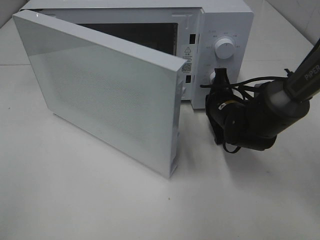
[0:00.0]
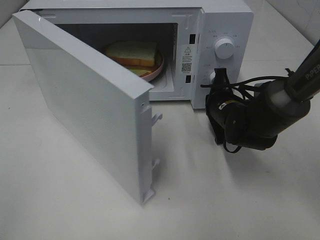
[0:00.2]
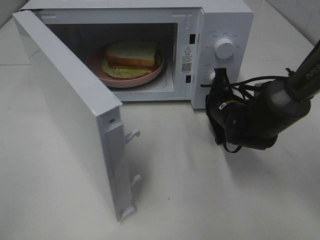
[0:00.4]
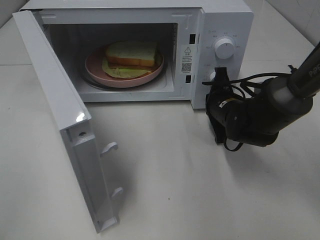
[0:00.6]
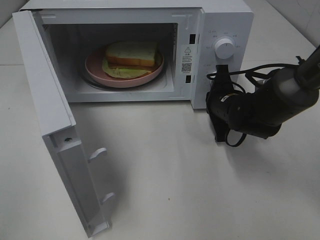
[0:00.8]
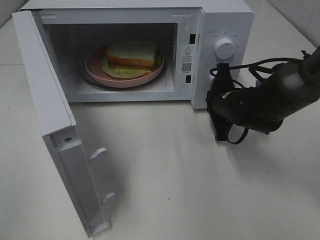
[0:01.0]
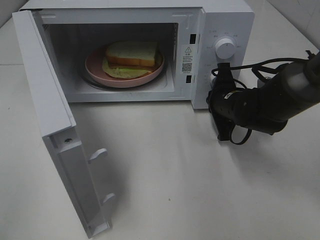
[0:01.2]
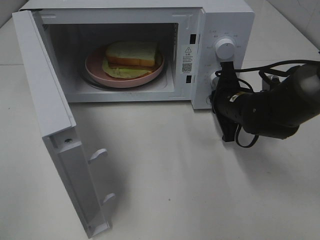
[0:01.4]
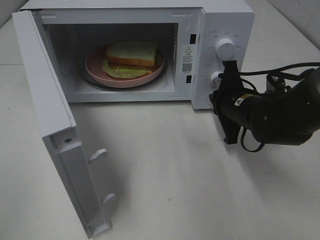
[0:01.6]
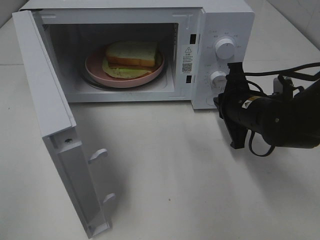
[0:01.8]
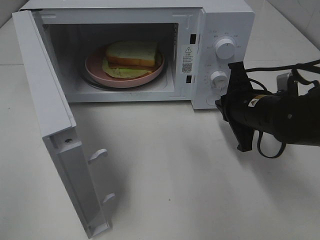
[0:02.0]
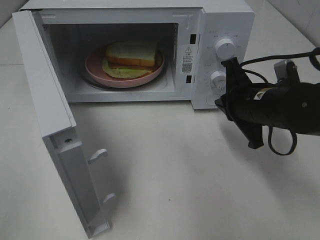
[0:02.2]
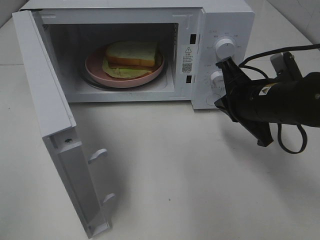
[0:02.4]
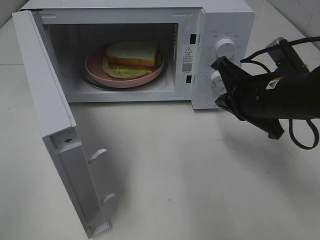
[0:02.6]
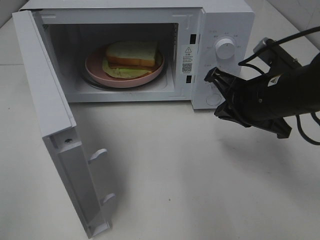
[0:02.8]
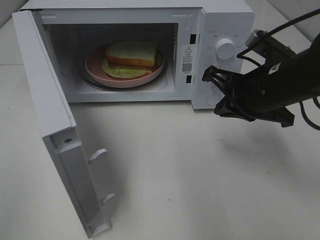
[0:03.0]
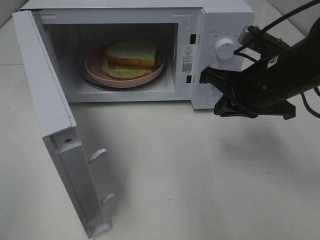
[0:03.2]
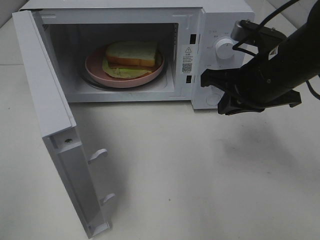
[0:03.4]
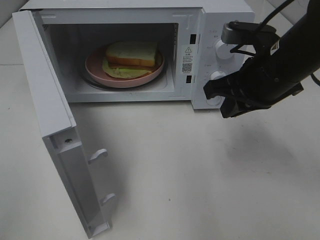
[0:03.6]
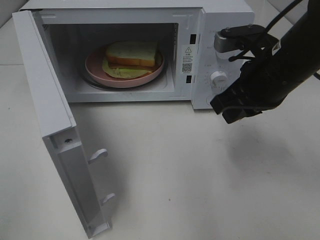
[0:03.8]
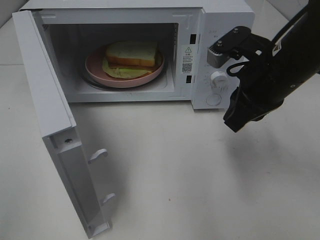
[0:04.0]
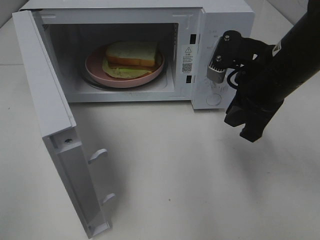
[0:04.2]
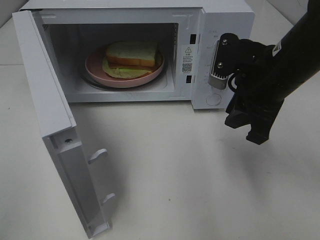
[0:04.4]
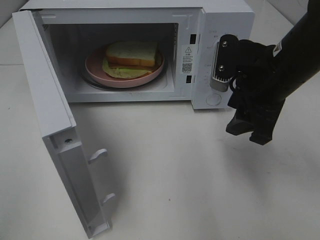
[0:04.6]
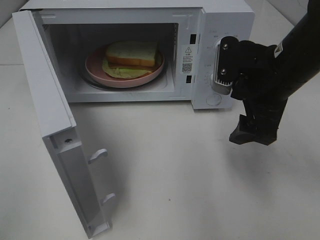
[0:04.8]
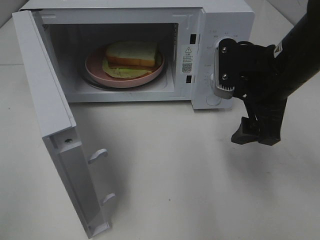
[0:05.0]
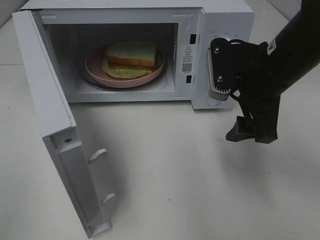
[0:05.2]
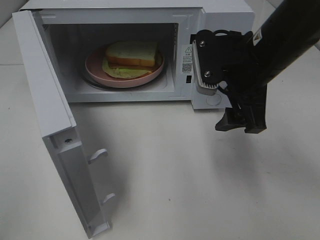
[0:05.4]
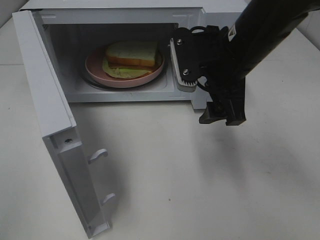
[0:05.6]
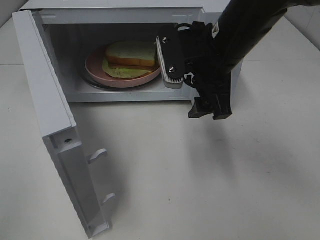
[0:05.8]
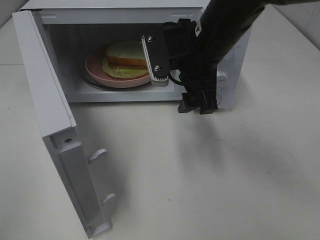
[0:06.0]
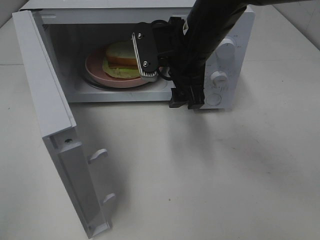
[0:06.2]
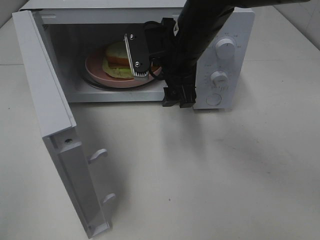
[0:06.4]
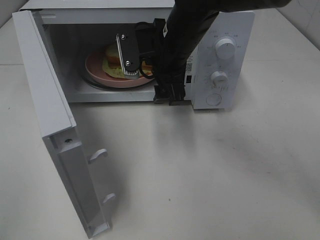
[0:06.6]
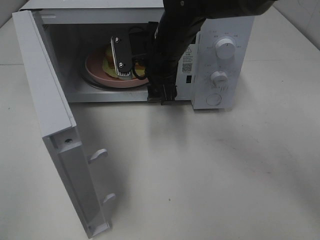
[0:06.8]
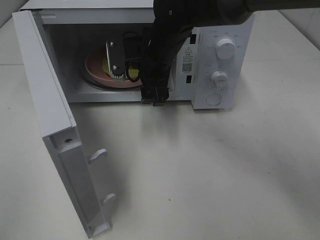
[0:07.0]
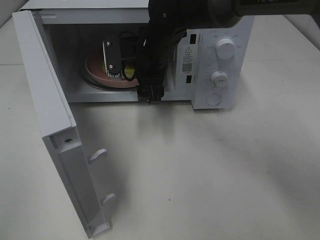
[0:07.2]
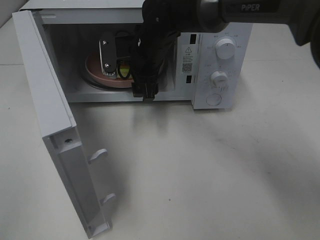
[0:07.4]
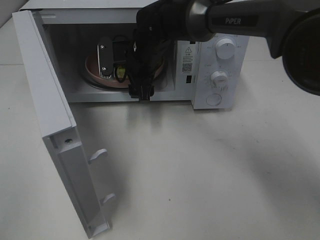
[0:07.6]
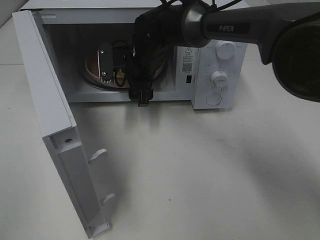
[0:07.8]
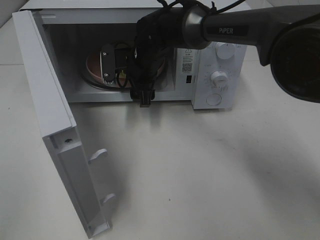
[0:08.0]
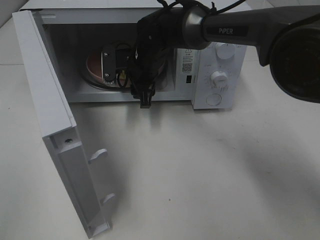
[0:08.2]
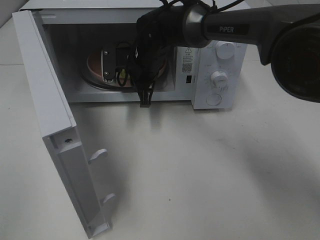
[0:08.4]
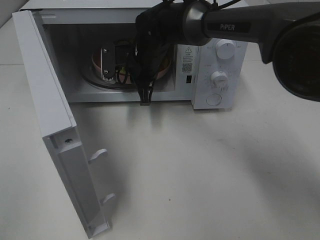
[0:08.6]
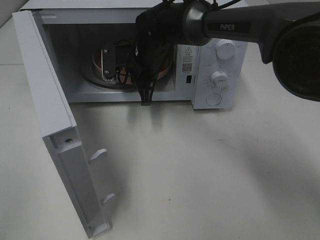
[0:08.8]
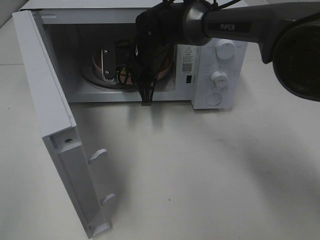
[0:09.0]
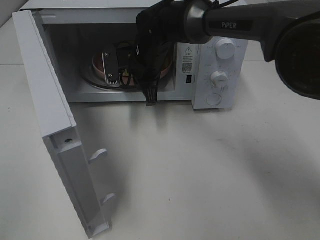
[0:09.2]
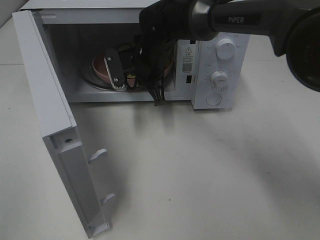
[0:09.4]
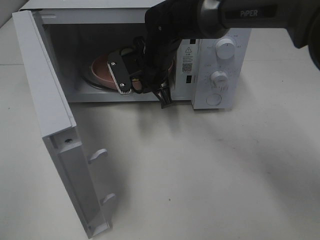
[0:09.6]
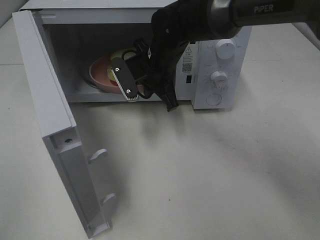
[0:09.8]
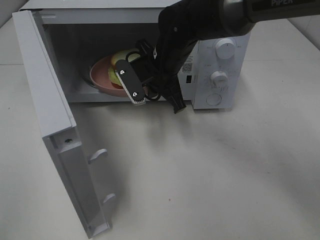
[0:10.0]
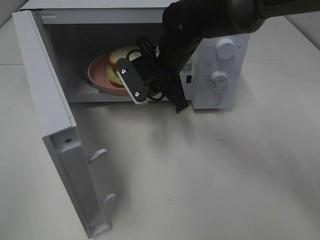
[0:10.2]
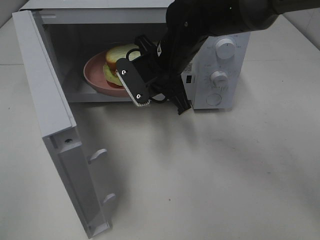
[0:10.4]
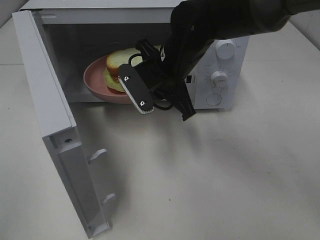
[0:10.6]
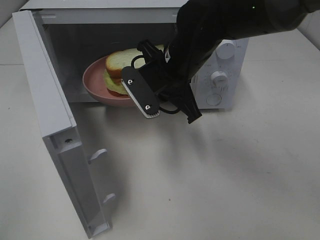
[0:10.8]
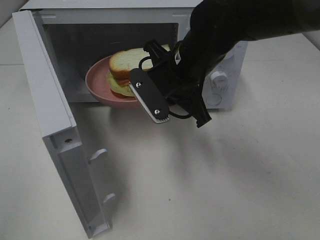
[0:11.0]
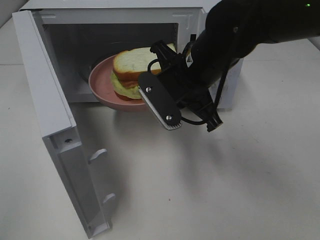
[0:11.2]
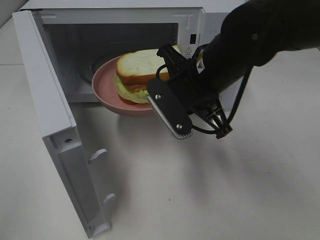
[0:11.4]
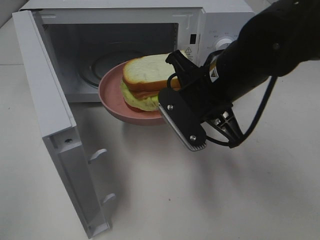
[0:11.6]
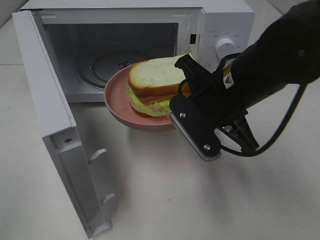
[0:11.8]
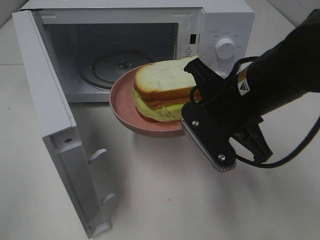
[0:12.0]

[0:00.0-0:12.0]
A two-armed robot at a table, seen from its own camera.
Task of the whole recording: Heat Sandwich.
Step, 0:01.6 to 0:08.4: Right hand: grab the plate with the sandwich.
0:00.0 to 0:01.6: The right gripper ends up approximately 5 cm from where it was.
0:01.6 to 0:03.0: The right gripper moves upward, approximately 10 cm.
0:04.4 to 0:06.0: The right gripper heads to the left, covering approximately 10 cm, and opens.
0:06.0 to 0:07.6: The right gripper heads forward, to the left and downward, covering roughly 15 cm.
0:07.6 to 0:09.0: The right gripper closes up.
0:09.0 to 0:10.4: The right gripper goes some 10 cm backward.
0:10.4 to 0:12.0: The right gripper heads backward and to the right, covering about 15 cm.

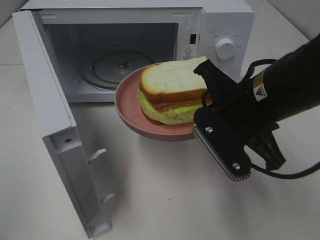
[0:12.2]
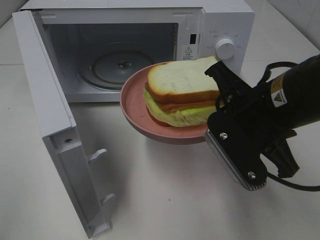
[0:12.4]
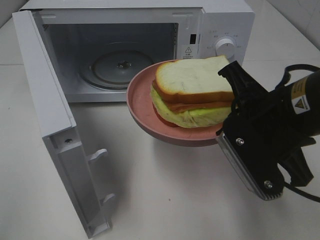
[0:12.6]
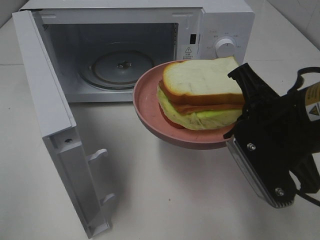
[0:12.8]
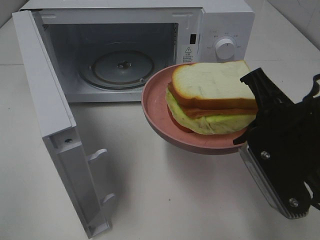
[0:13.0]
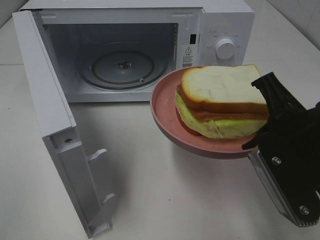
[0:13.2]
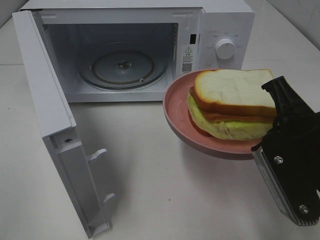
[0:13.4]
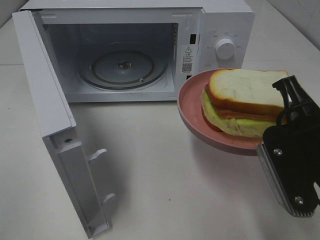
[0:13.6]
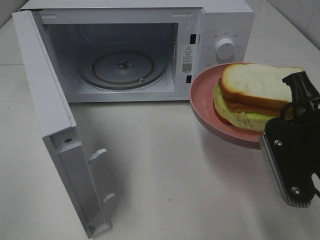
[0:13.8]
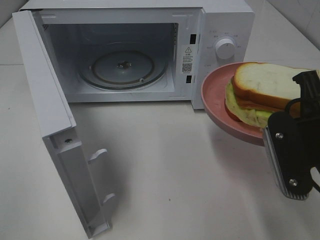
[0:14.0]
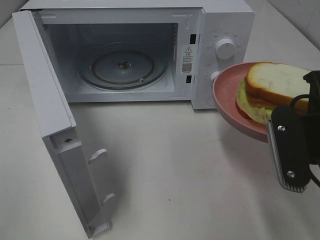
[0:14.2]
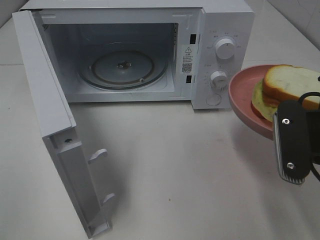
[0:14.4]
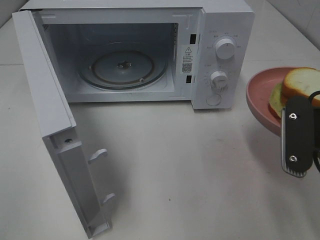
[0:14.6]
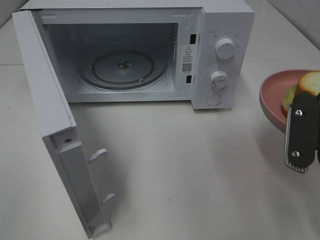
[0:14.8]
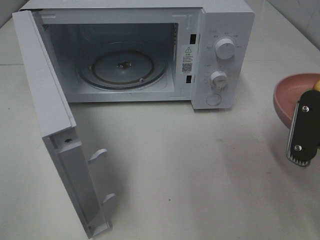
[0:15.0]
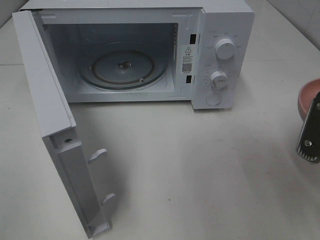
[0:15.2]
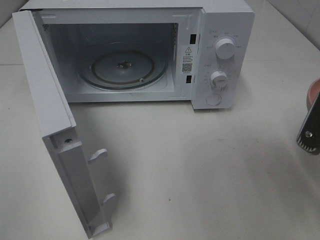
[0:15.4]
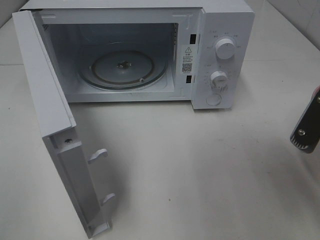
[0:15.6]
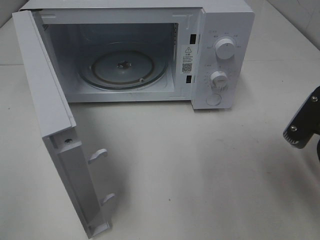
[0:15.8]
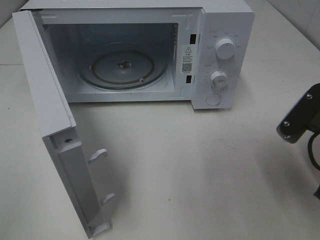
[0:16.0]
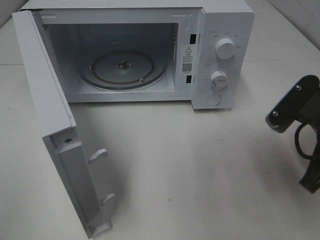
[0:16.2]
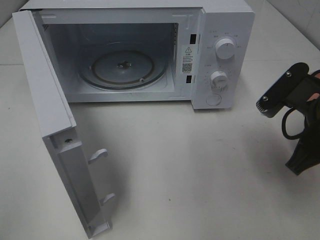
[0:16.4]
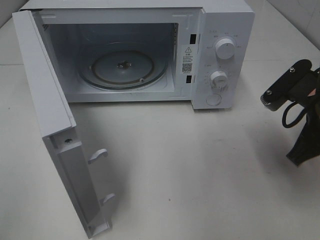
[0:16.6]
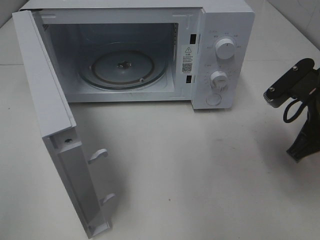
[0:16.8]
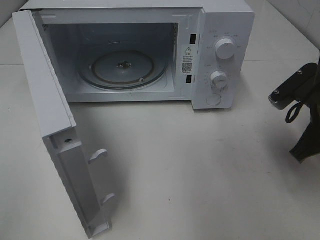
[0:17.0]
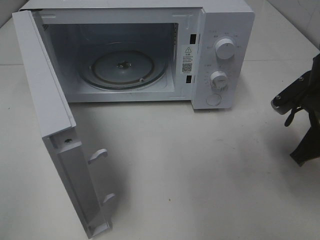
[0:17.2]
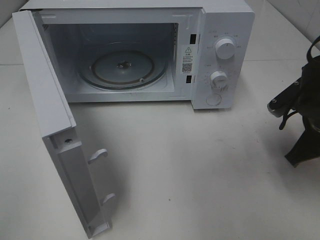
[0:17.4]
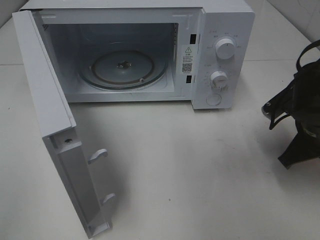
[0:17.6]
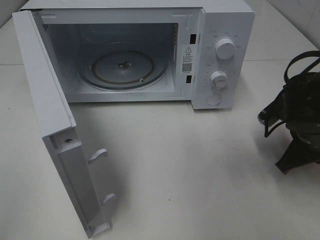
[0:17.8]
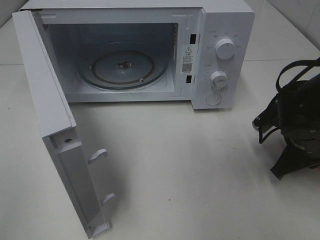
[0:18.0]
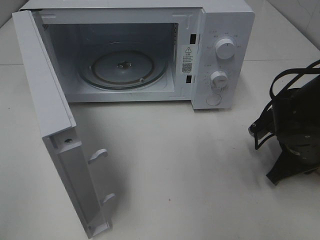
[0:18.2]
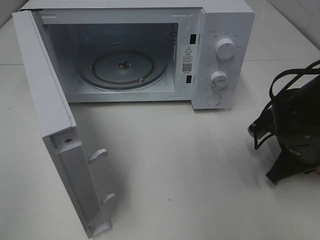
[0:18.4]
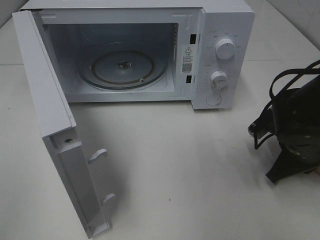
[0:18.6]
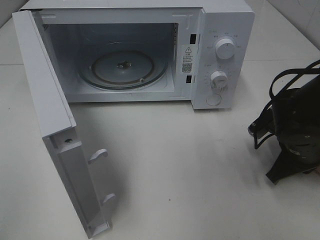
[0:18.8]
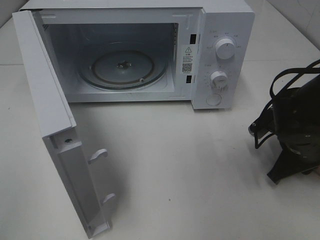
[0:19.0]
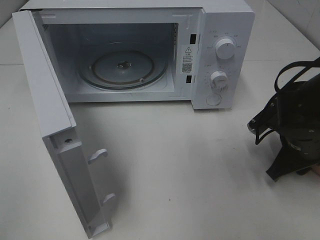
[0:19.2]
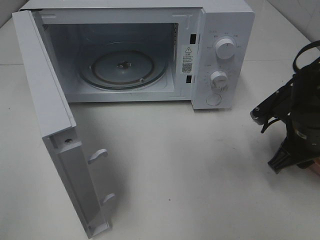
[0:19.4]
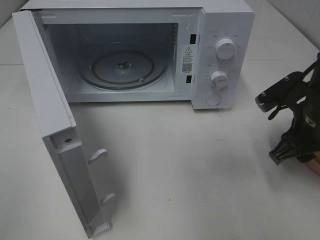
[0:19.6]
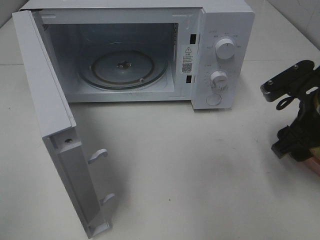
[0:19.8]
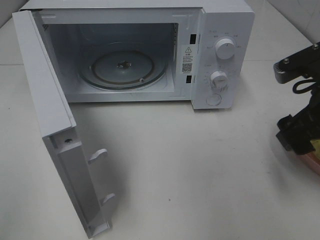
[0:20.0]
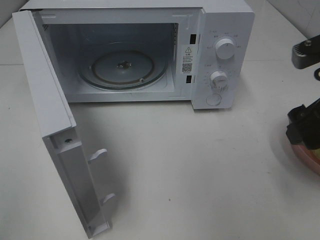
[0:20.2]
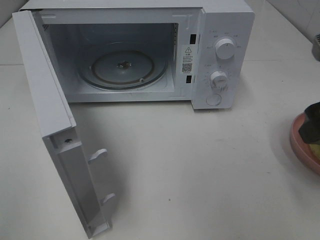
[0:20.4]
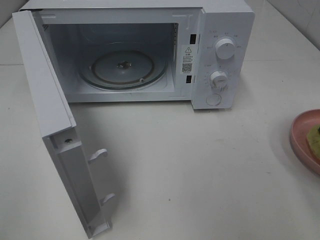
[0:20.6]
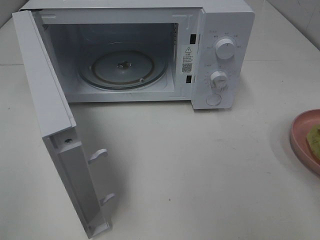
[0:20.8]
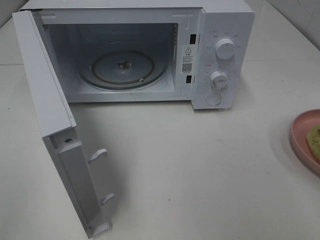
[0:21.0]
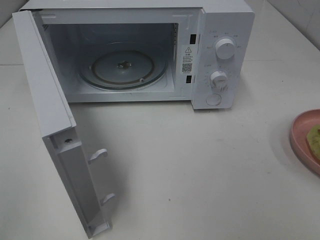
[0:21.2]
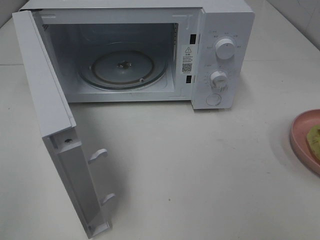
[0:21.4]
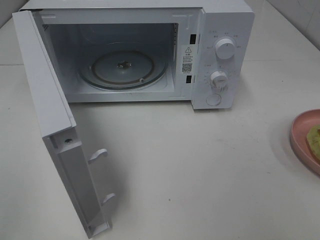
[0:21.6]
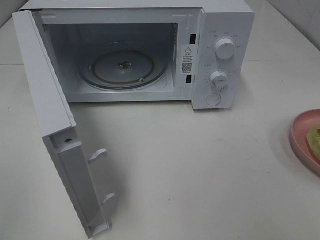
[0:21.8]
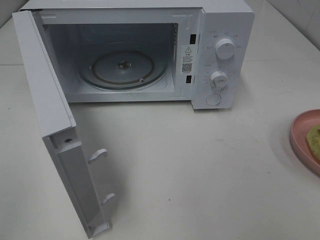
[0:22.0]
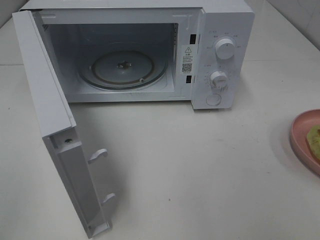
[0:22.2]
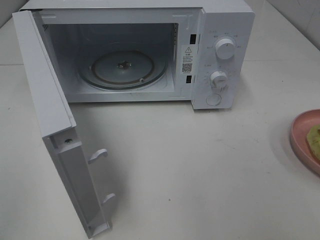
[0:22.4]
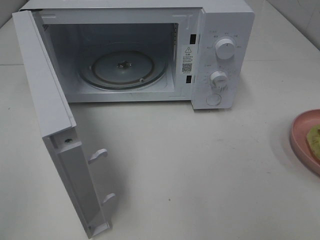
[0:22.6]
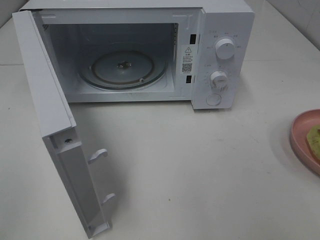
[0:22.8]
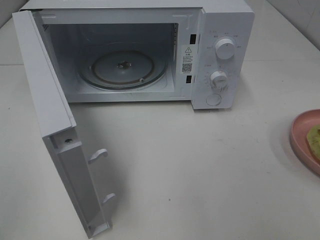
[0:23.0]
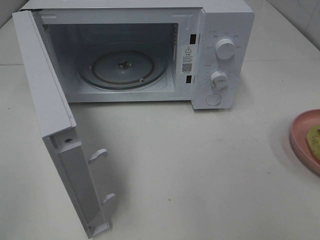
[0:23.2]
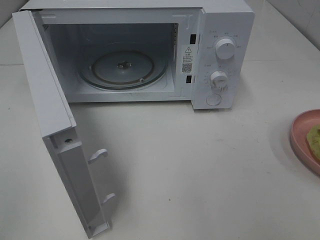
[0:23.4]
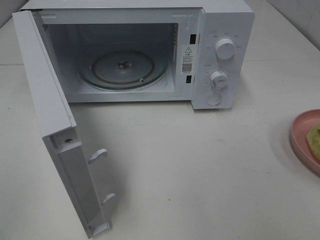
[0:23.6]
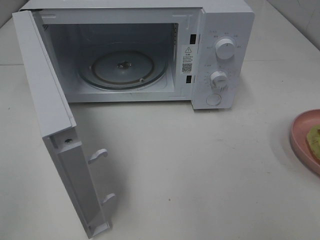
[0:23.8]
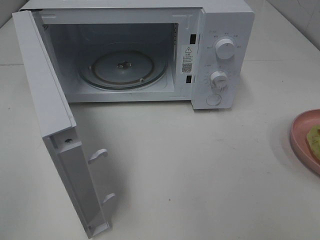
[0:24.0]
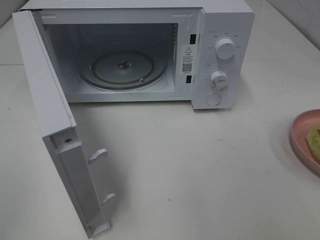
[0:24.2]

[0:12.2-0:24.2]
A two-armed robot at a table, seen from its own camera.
Task of the whole recording: Heat Sandwich.
Step, 0:12.2 to 0:20.0: Right hand: place the plate on the table.
0:12.2 to 0:13.8: The right gripper shifts some 10 cm to the right and backward.
0:15.2 to 0:16.6: The right gripper shifts some 10 cm forward.
0:16.6 to 0:18.2: The right gripper heads downward, covering approximately 10 cm.
0:18.2 to 0:19.8: The right gripper is displaced upward by about 10 cm, and opens its fingers.
0:19.8 to 0:21.2: The right gripper is displaced backward and upward by roughly 20 cm.
0:22.6 to 0:24.2: Both grippers stay put.
